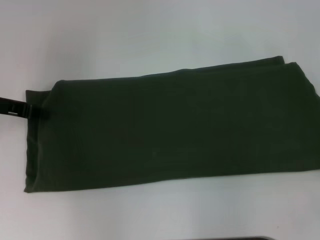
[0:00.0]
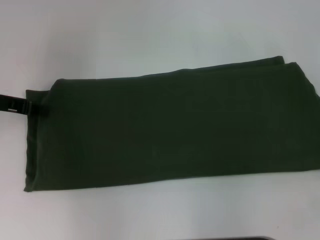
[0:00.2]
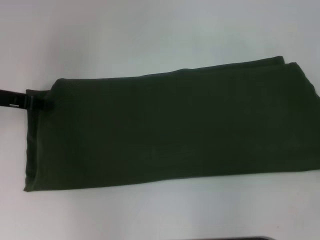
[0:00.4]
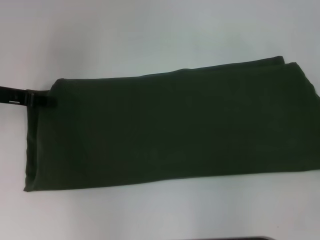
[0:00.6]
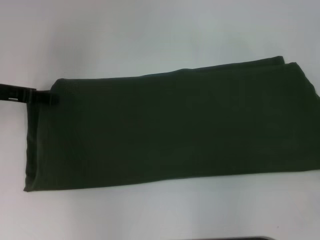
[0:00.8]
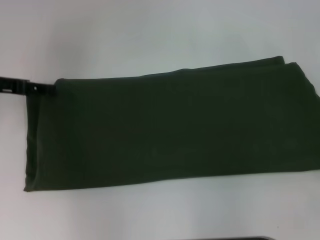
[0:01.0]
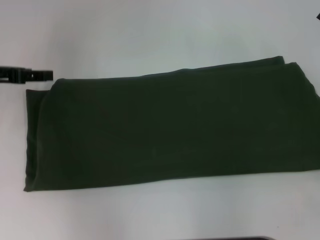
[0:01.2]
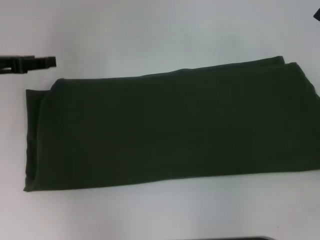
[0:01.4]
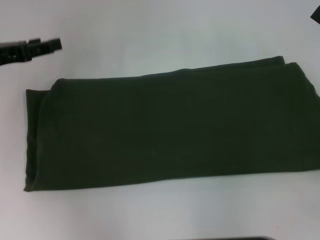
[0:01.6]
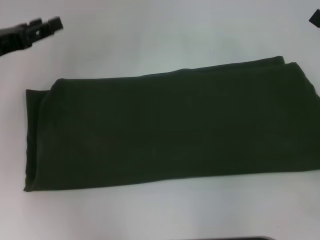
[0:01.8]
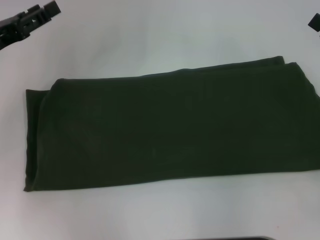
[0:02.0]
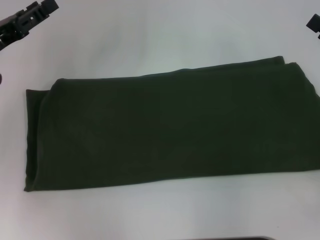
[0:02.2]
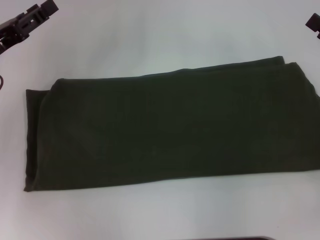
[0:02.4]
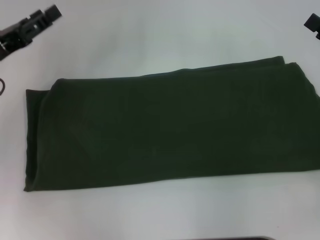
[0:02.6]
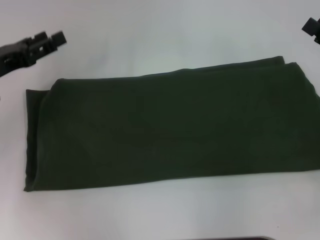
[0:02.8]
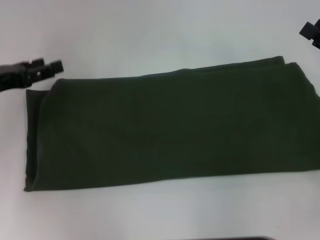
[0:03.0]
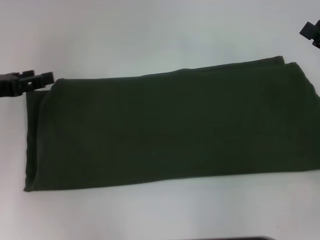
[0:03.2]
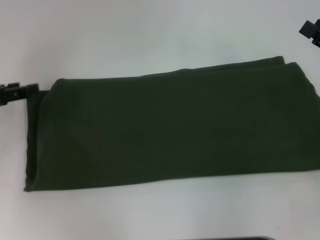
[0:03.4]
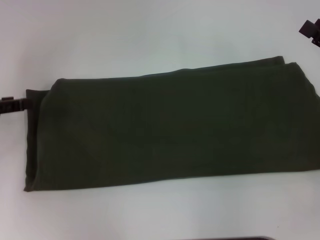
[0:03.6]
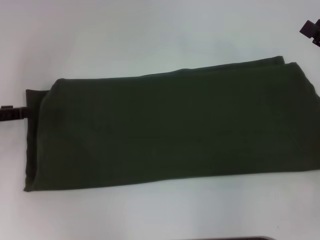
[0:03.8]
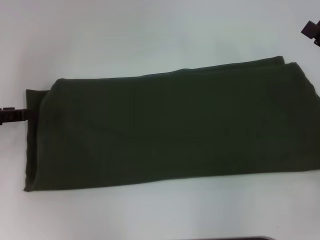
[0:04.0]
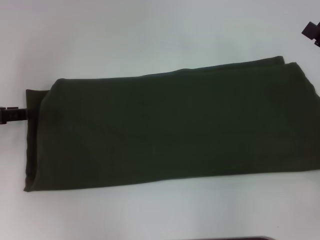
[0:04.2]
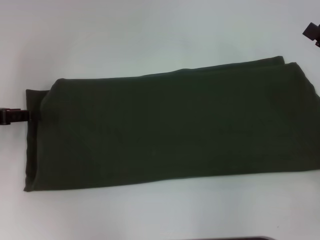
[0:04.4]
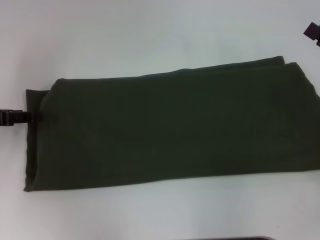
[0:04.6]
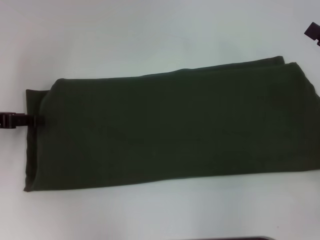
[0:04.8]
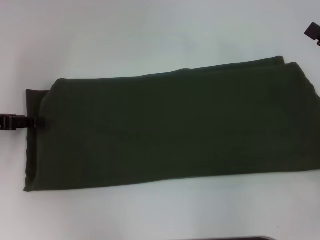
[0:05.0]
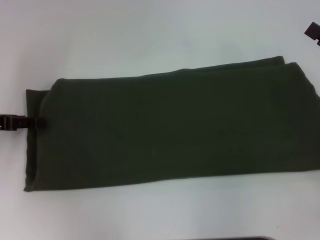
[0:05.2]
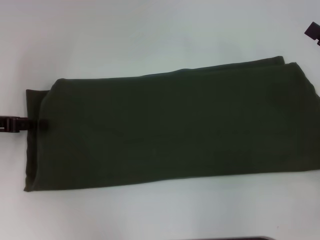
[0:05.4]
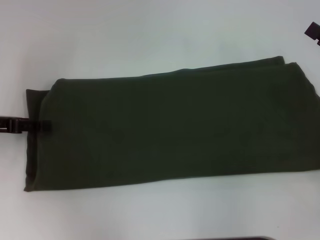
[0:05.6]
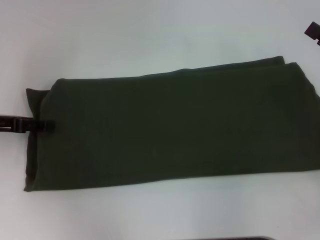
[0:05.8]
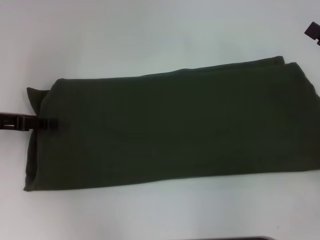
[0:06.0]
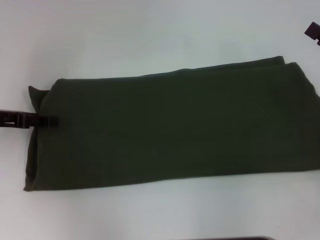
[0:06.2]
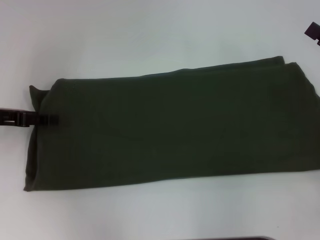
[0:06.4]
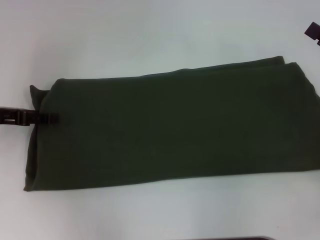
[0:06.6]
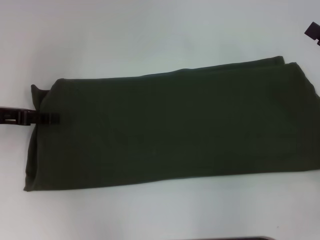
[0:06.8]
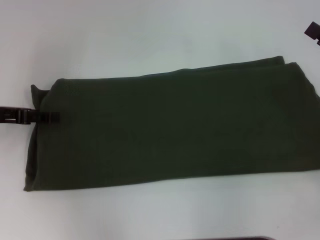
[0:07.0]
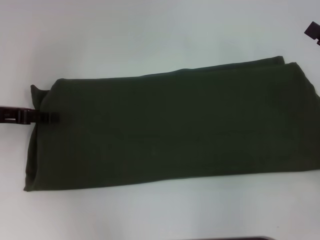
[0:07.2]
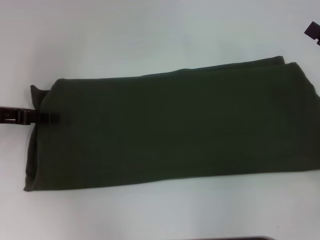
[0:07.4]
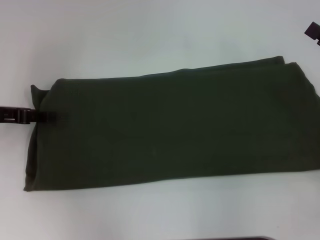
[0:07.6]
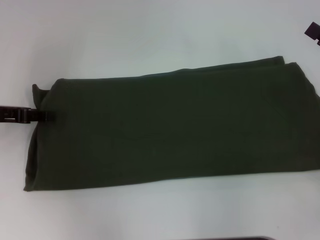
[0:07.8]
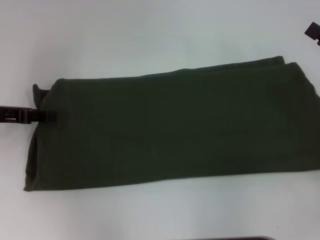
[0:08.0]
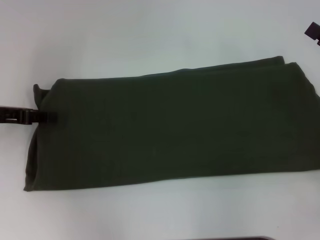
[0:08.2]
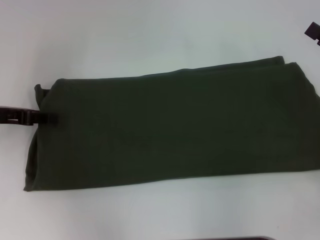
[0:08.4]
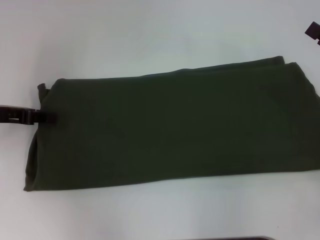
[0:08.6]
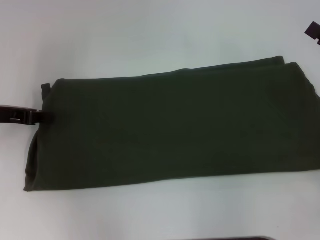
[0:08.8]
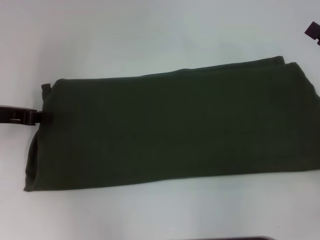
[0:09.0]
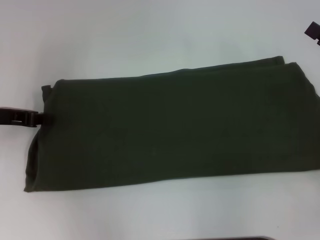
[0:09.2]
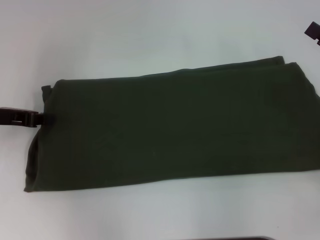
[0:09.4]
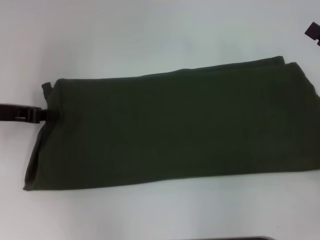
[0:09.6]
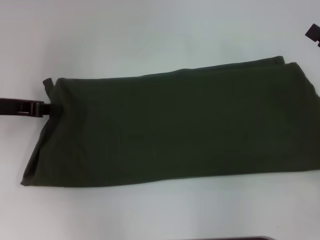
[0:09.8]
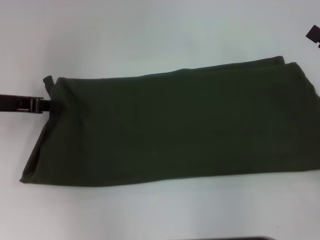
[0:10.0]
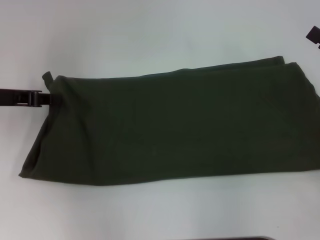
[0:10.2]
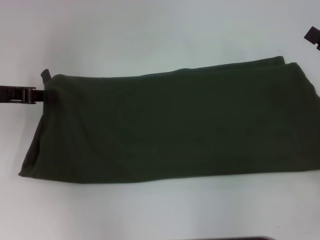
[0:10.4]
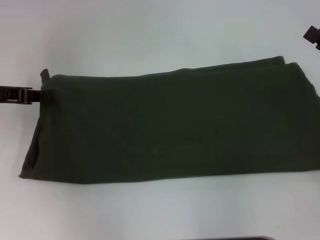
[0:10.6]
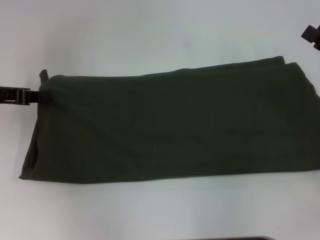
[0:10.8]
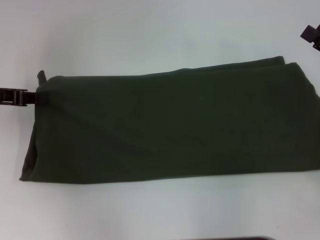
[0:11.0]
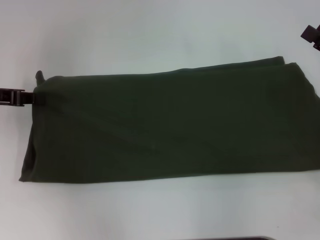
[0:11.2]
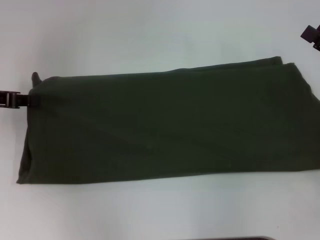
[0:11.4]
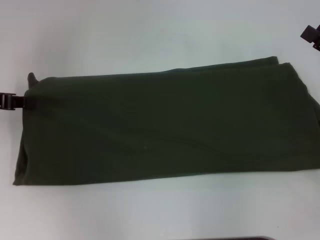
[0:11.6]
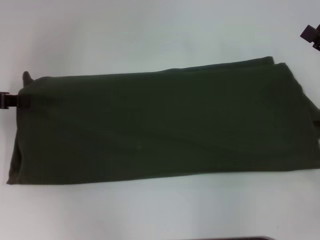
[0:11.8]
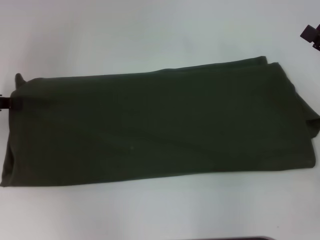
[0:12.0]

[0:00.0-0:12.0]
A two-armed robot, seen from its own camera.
0:00.0 to 0:01.6: The left gripper opens up.
0:04.4 to 0:06.0: The grippers make only small movements.
0:06.0 to 0:07.6: Both grippers stay put.
0:07.6 to 0:09.0: The left gripper closes.
0:09.0 to 0:12.0: There are only small adjustments of the grippers.

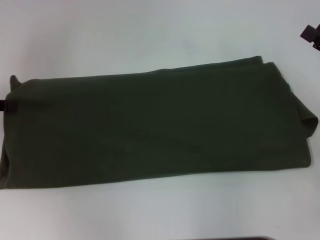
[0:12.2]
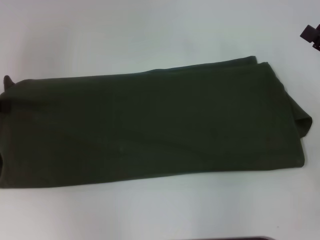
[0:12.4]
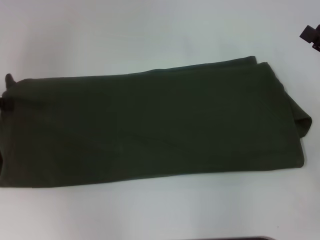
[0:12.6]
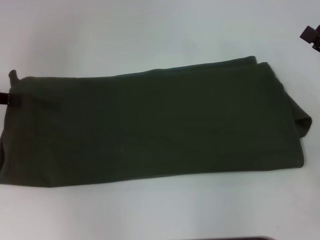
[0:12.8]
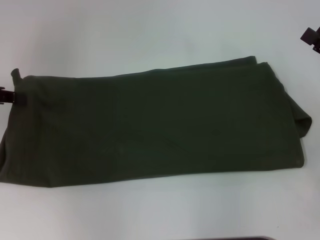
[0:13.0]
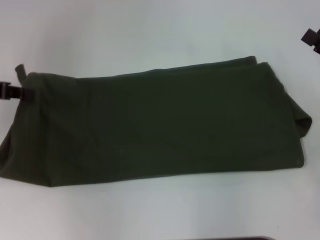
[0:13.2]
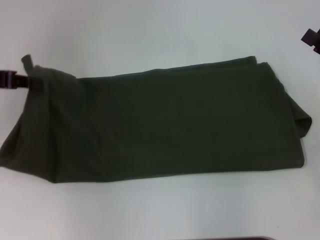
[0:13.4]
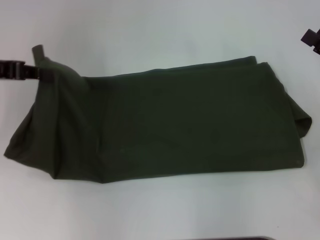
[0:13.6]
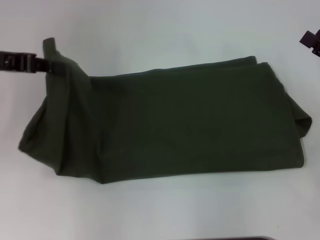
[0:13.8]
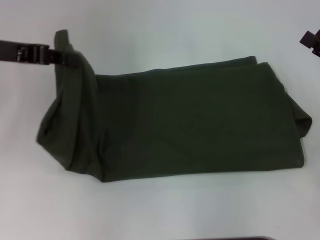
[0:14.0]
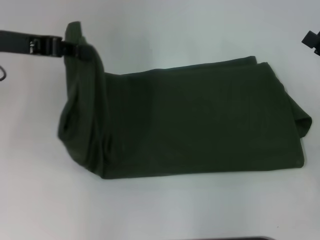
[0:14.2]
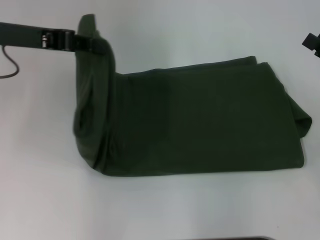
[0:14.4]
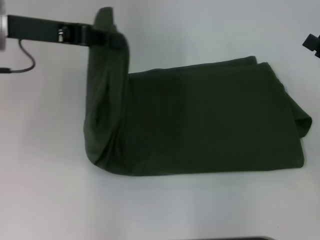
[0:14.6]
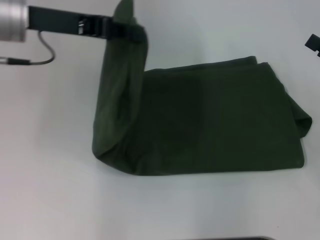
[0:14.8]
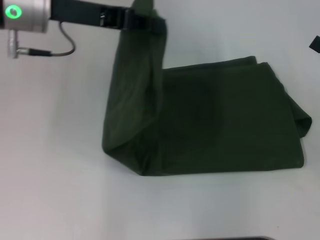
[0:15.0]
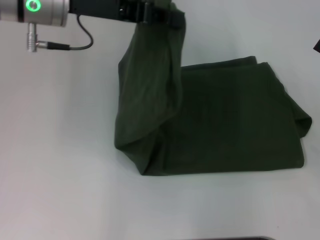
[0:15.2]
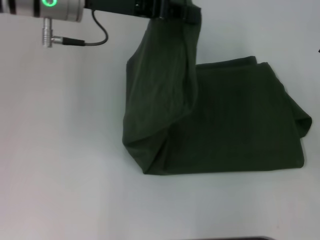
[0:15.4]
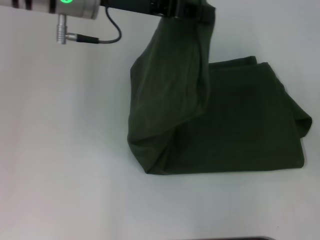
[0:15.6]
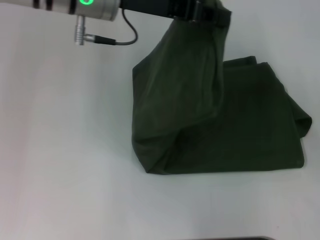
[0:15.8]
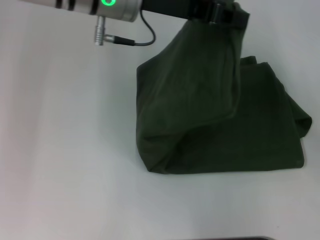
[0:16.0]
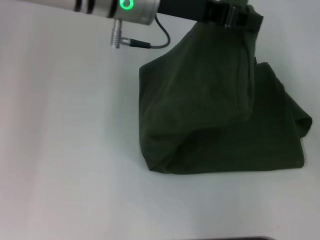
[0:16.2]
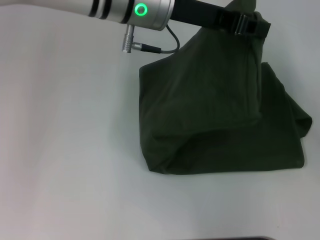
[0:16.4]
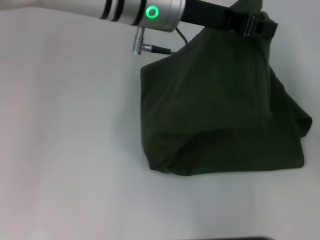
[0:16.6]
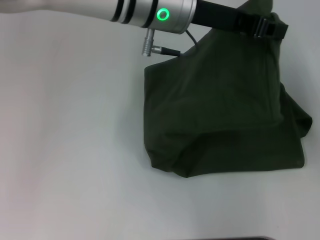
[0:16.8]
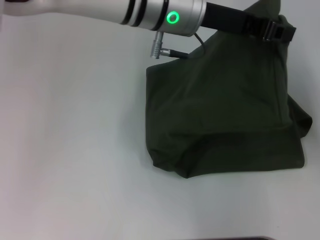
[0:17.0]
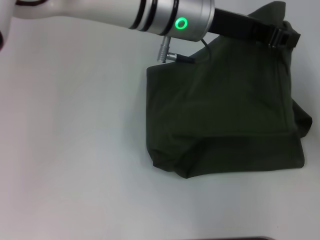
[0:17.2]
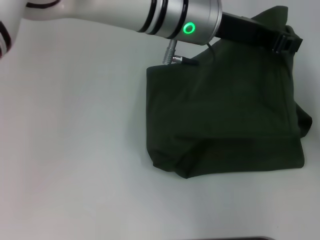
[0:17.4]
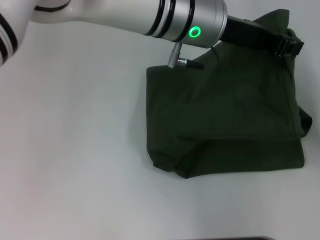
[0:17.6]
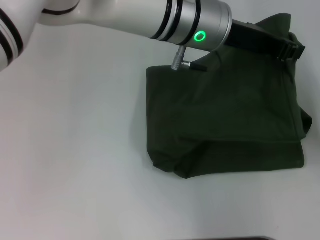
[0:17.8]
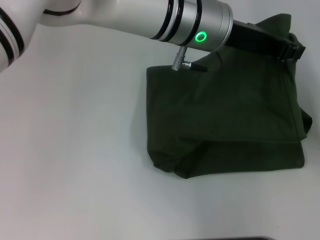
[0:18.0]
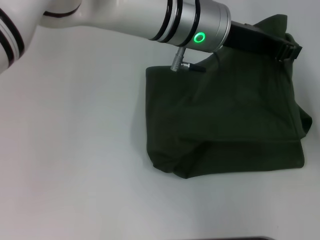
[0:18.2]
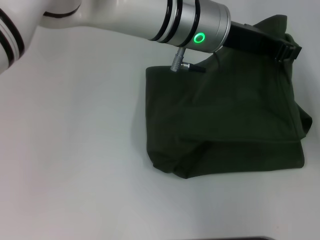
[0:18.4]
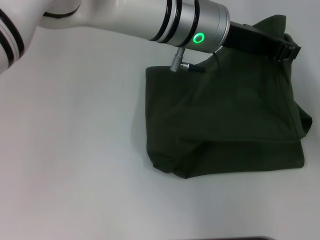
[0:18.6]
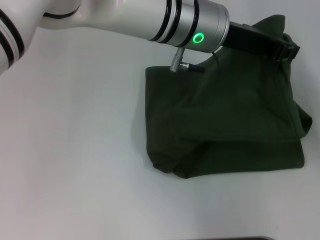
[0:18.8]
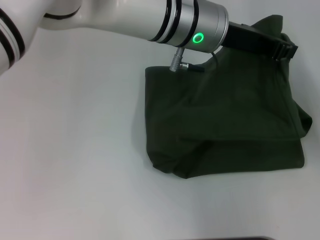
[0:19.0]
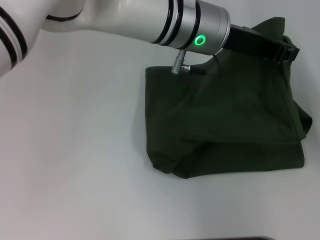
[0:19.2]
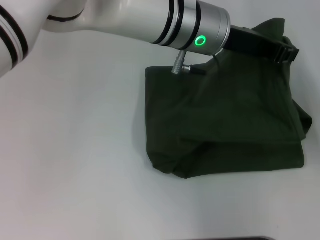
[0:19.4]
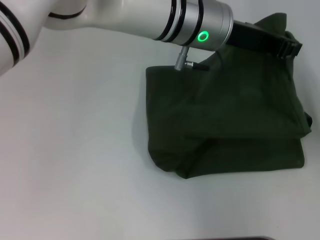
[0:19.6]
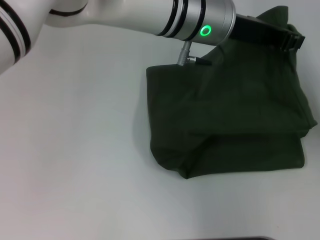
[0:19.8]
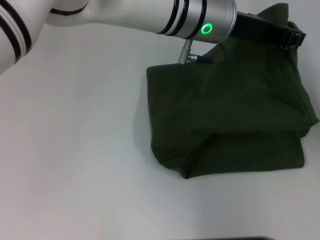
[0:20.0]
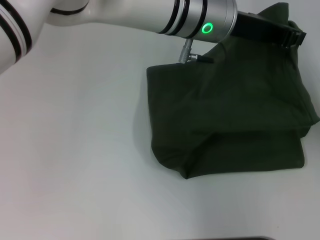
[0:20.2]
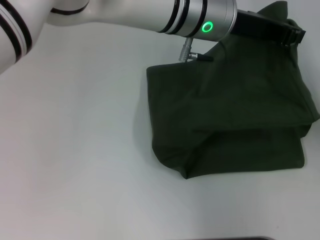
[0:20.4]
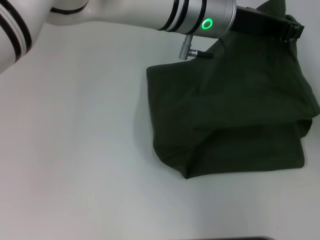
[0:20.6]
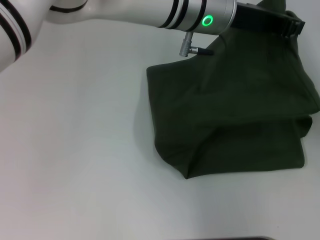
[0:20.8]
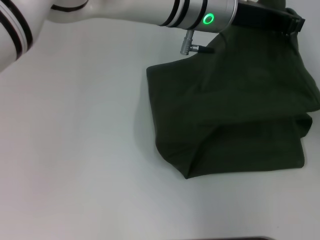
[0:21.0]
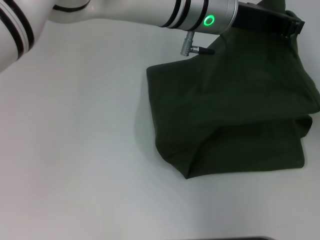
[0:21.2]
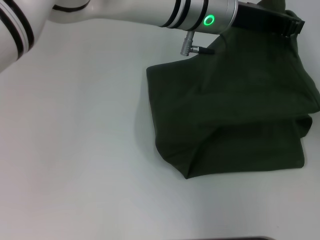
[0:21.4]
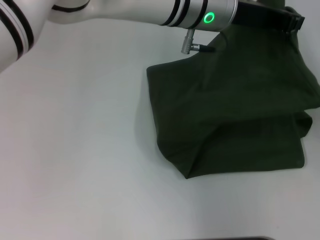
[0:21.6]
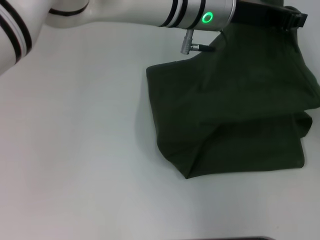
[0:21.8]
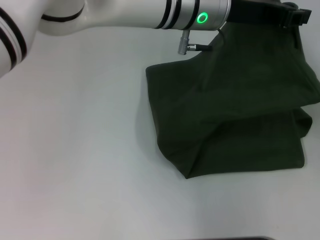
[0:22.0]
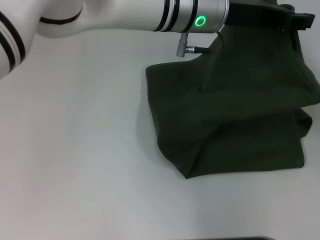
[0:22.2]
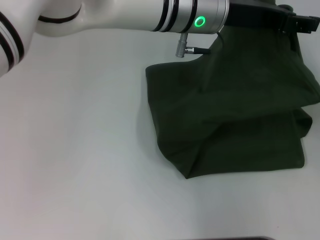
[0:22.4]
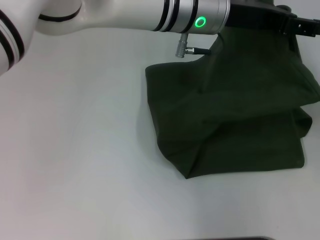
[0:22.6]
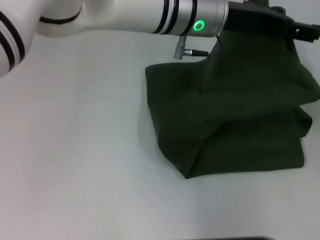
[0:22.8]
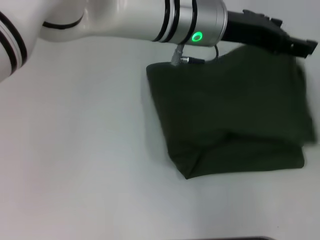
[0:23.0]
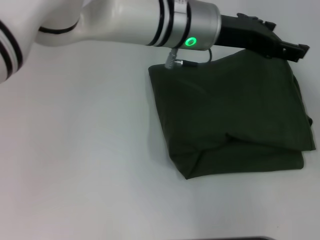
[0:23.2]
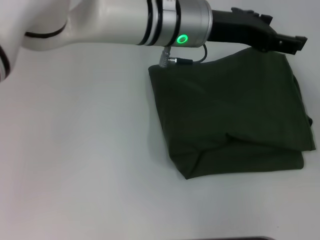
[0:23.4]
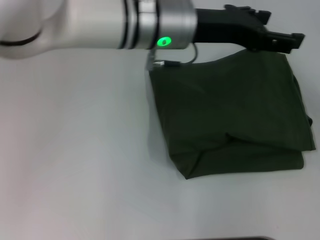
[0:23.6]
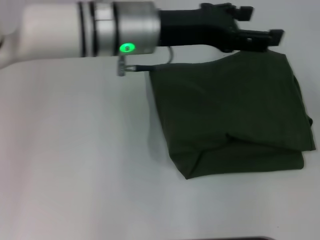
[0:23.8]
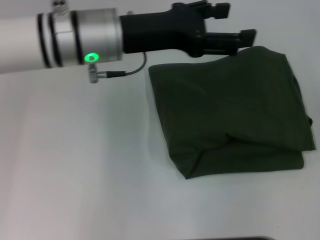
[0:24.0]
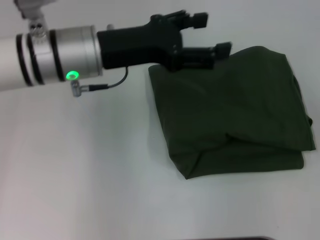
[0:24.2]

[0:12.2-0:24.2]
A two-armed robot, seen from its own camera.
Step, 0:12.2 to 0:23.0: Fold the clothes with your left hand.
0:12.2 to 0:13.8: The left gripper moves to the right, some 5 cm.
0:13.8 to 0:15.2: The left gripper goes about 15 cm to the right.
0:15.2 to 0:16.6: The left gripper heads to the right, covering roughly 10 cm.
0:16.6 to 0:18.2: The left gripper goes roughly 5 cm to the right.
0:18.2 to 0:19.8: Neither gripper changes place.
0:19.8 to 0:21.2: The two grippers keep their place.
0:21.2 to 0:22.6: The left gripper opens up.
0:22.6 to 0:24.2: The left gripper shifts about 15 cm to the left. Meanwhile the right gripper shifts by approximately 5 cm.
